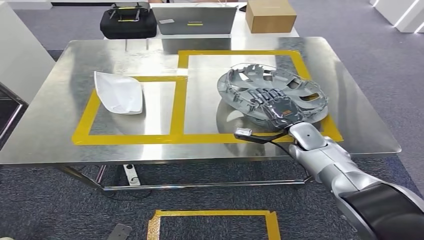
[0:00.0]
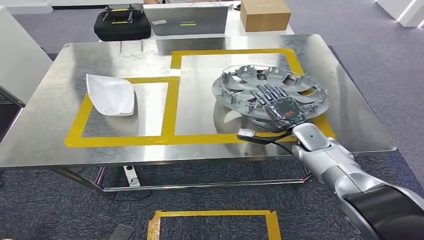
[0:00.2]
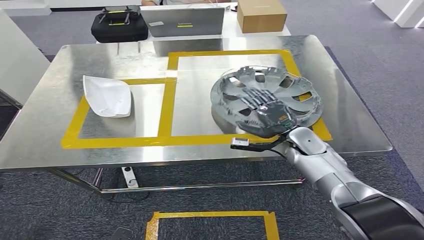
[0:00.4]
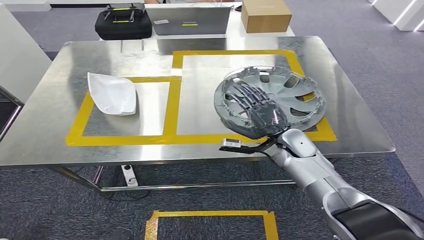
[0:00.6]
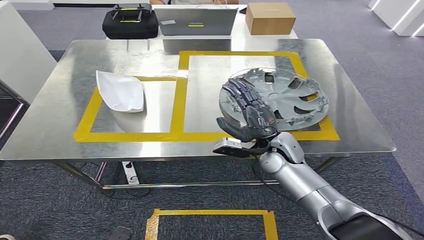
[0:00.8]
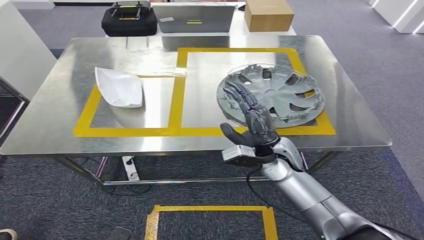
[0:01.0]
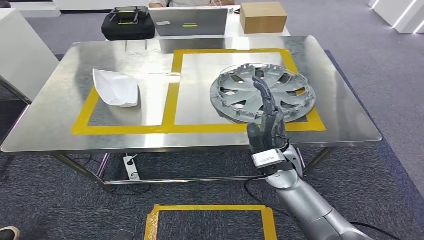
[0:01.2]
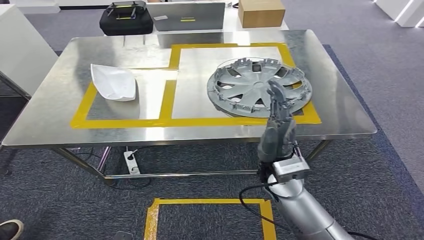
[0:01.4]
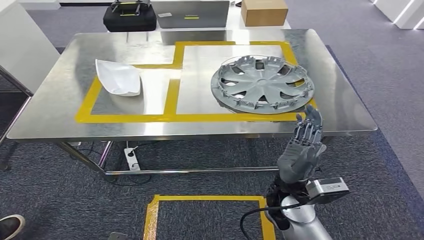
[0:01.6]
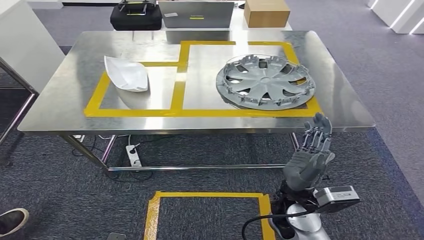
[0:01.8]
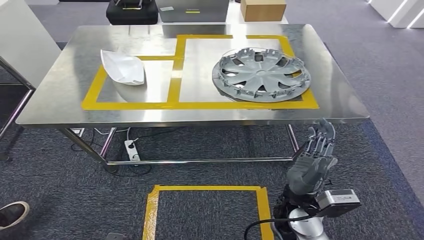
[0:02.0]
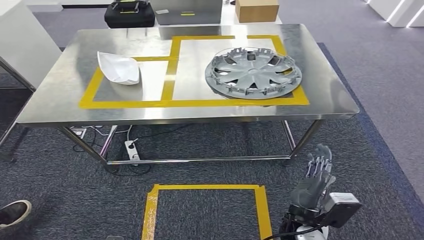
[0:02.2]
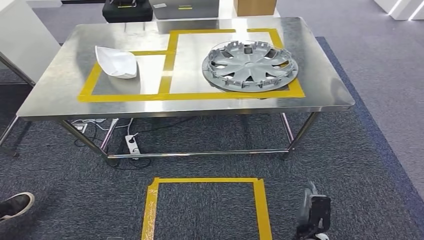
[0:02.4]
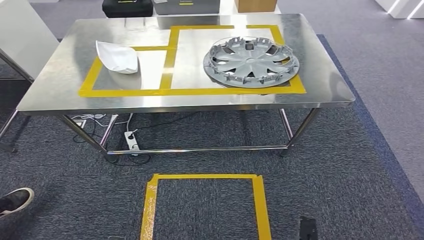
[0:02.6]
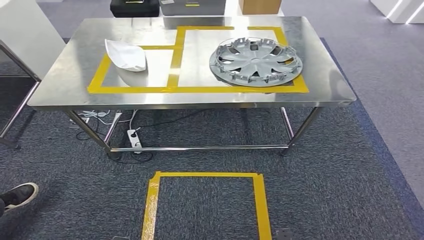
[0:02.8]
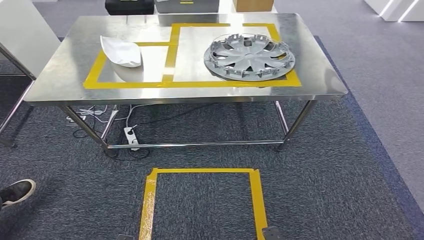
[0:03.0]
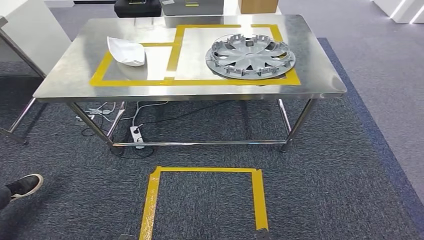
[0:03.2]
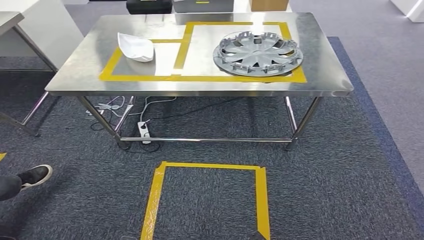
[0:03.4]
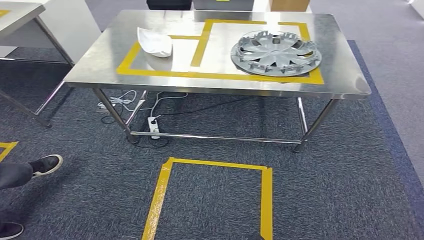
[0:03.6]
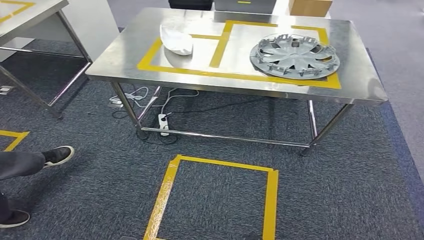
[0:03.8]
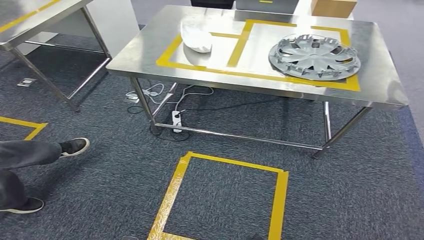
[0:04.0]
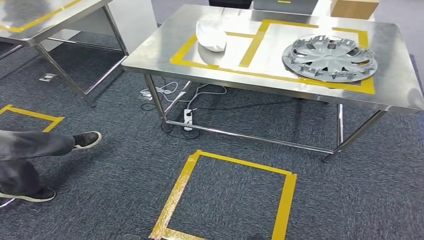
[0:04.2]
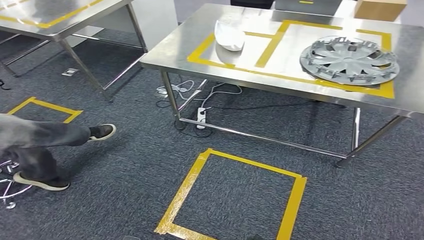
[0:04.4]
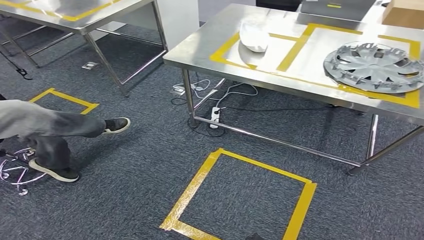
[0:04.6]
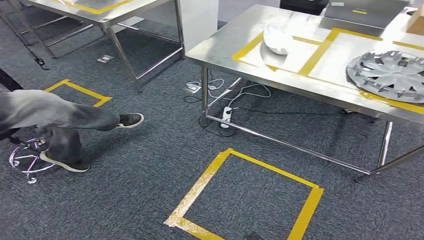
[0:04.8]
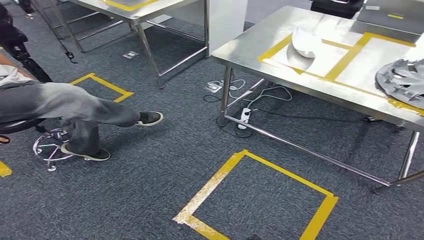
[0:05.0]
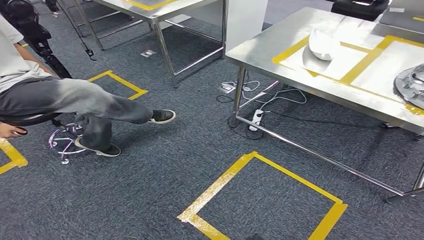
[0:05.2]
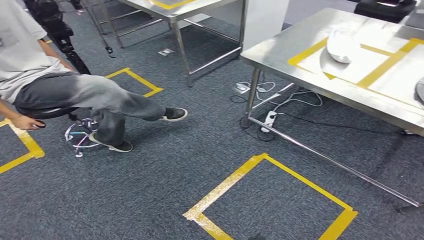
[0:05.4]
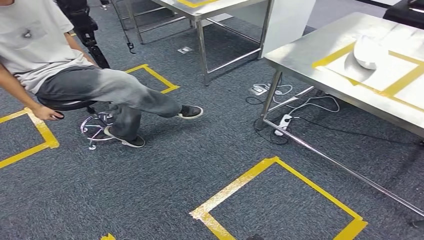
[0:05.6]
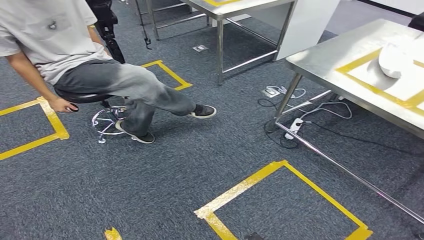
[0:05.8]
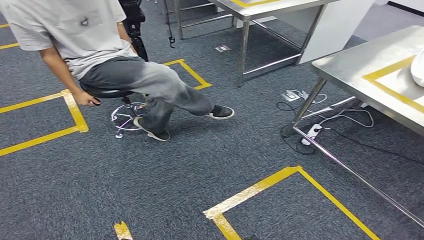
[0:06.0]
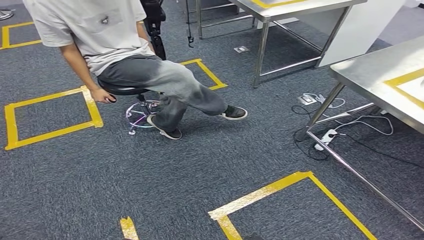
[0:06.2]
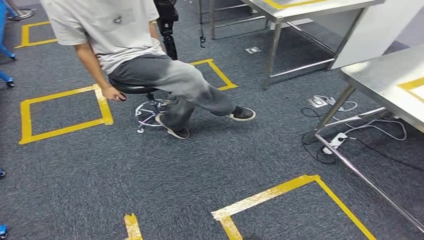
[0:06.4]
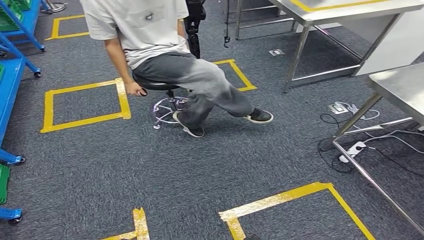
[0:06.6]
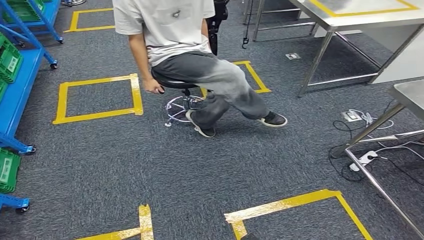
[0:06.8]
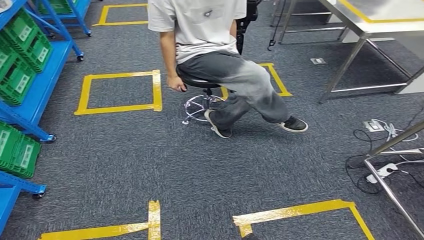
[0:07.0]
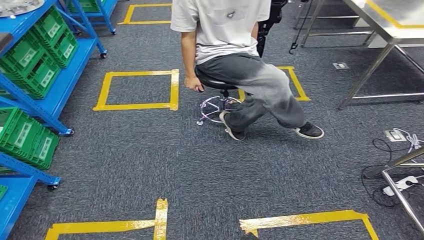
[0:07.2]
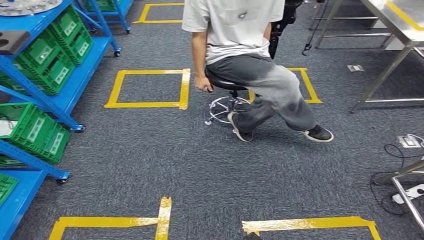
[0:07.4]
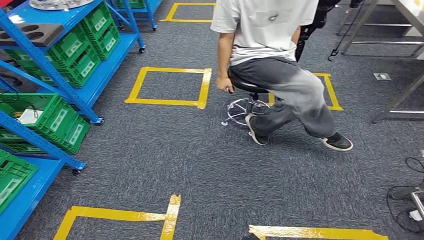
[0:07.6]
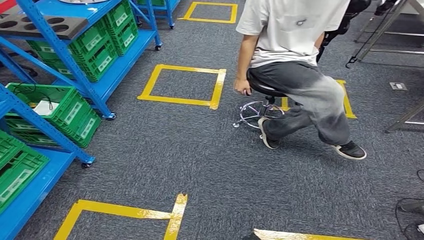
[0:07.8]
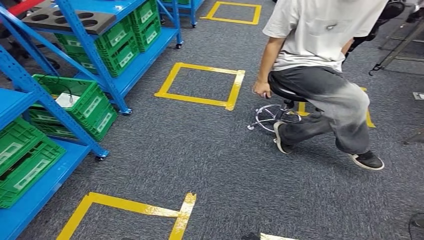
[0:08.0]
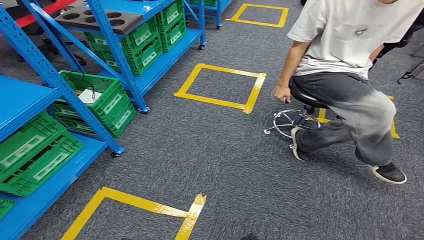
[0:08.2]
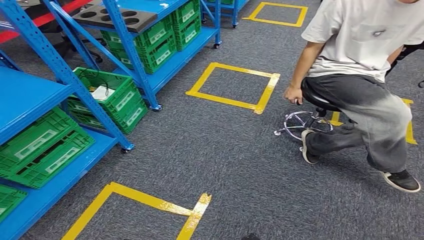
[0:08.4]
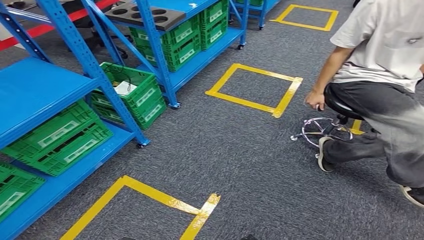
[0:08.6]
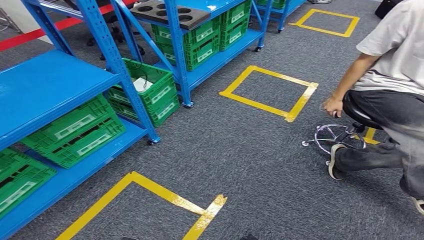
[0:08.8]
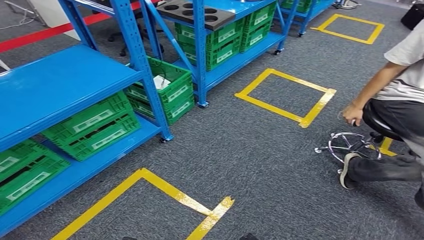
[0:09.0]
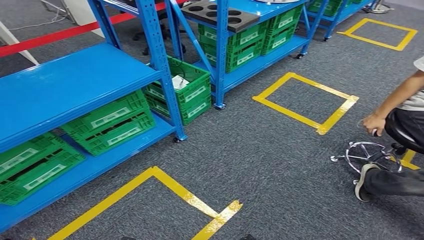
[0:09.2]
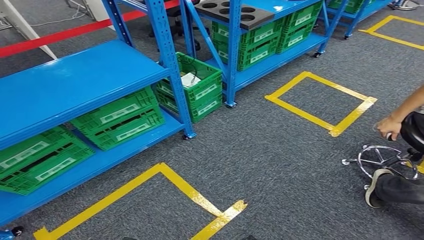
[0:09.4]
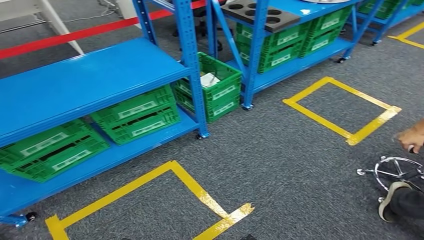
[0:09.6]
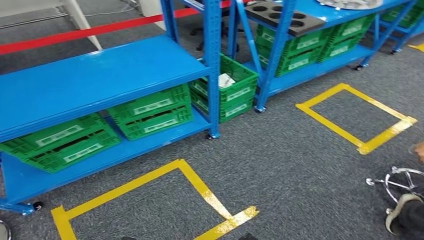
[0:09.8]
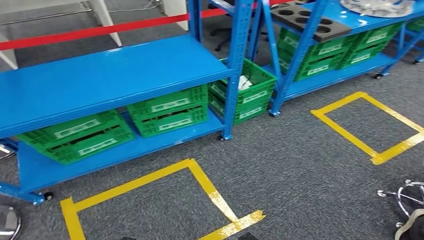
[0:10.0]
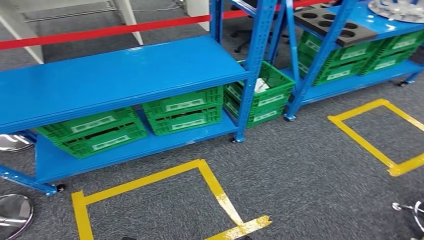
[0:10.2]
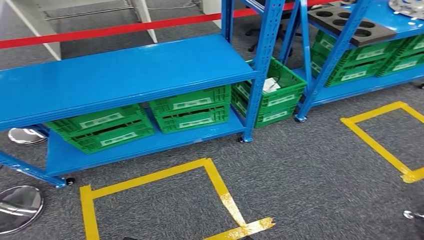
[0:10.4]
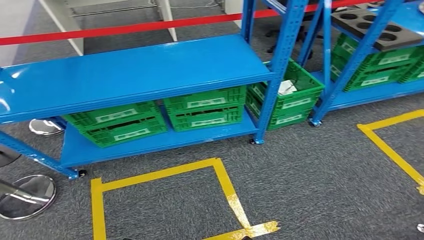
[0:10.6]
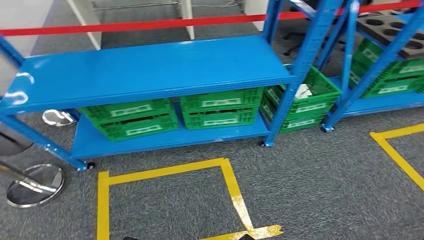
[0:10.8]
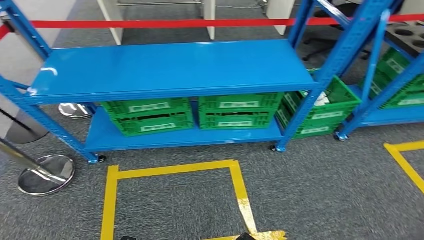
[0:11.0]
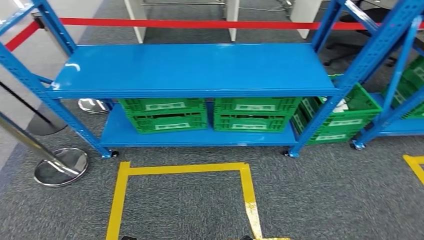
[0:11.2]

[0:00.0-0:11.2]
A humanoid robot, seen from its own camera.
Step, 0:01.4 to 0:11.2: Return to the initial position at the workbench.
